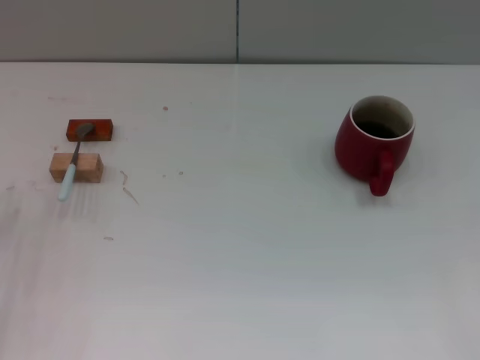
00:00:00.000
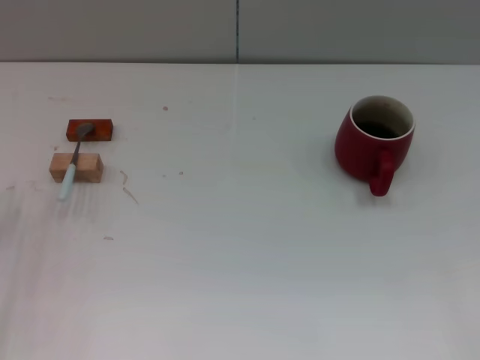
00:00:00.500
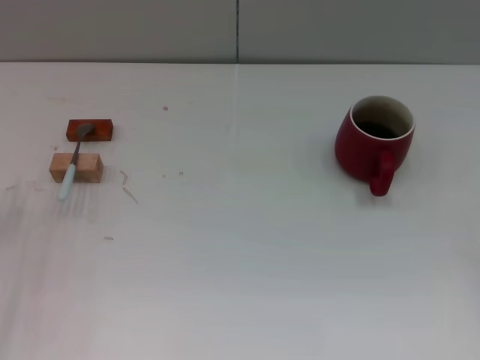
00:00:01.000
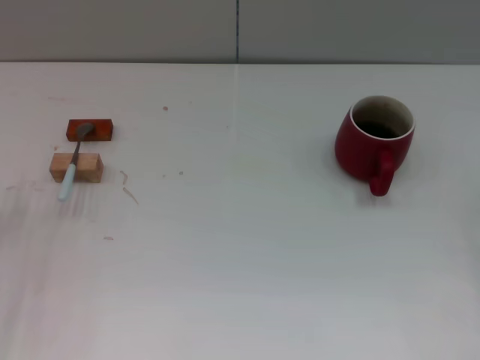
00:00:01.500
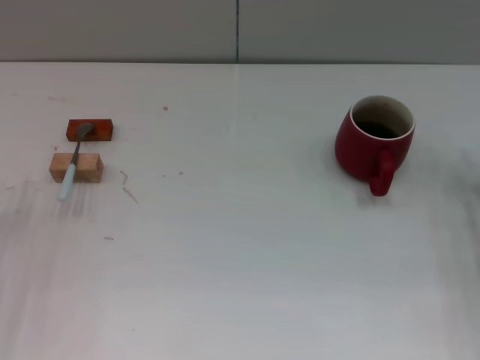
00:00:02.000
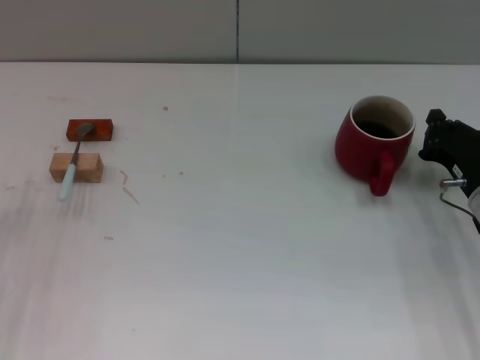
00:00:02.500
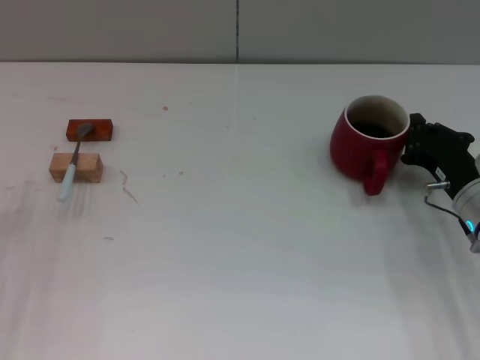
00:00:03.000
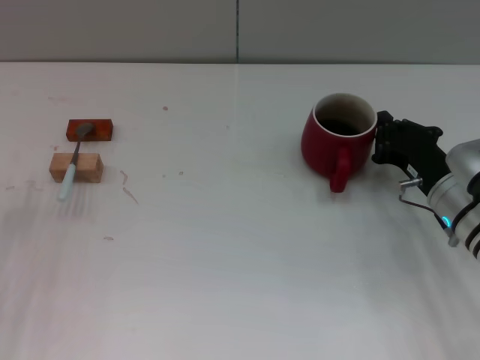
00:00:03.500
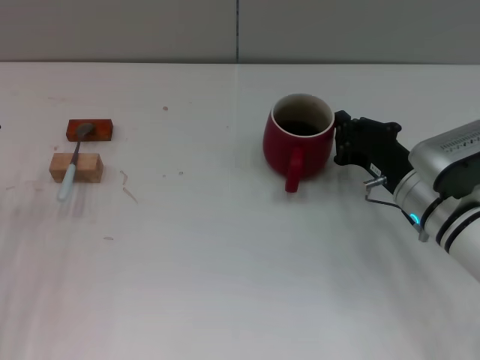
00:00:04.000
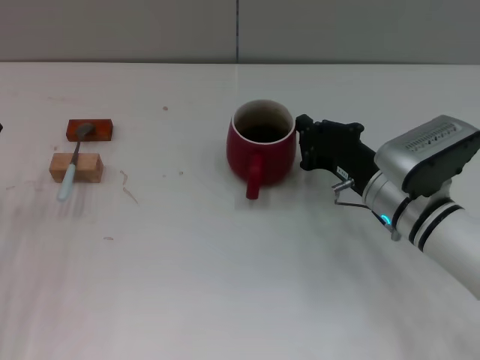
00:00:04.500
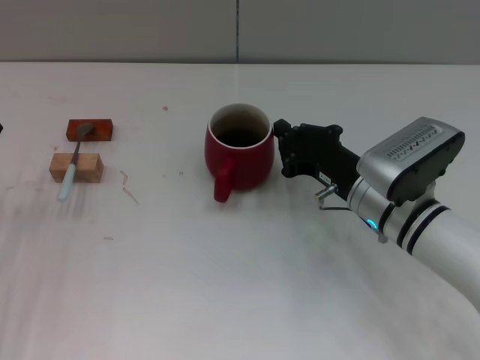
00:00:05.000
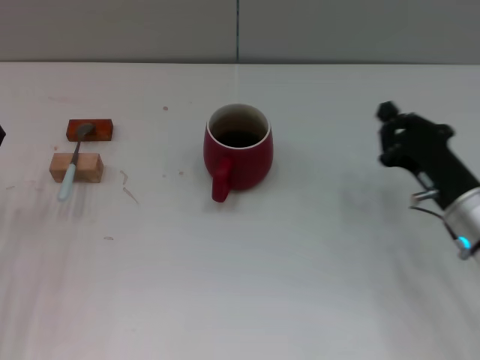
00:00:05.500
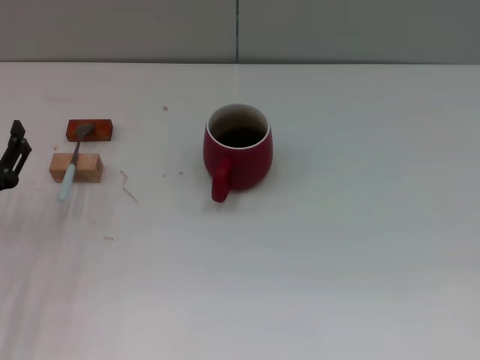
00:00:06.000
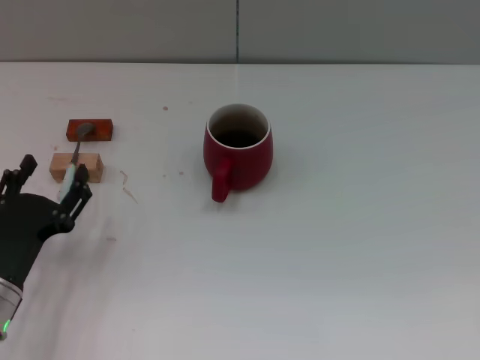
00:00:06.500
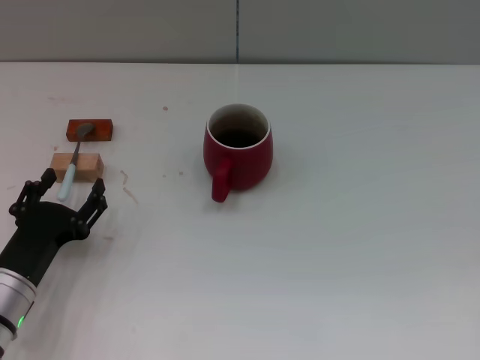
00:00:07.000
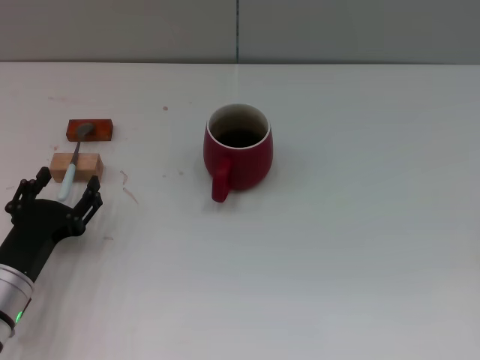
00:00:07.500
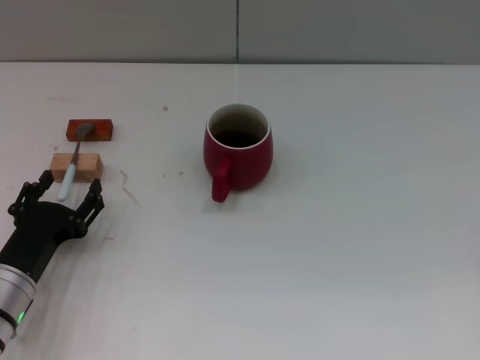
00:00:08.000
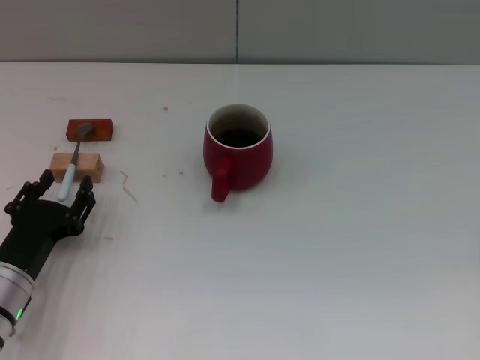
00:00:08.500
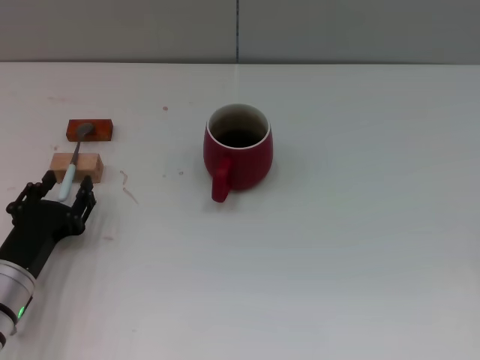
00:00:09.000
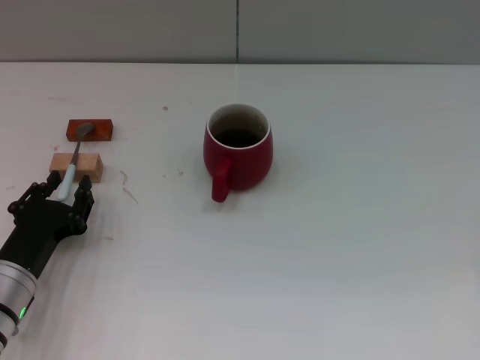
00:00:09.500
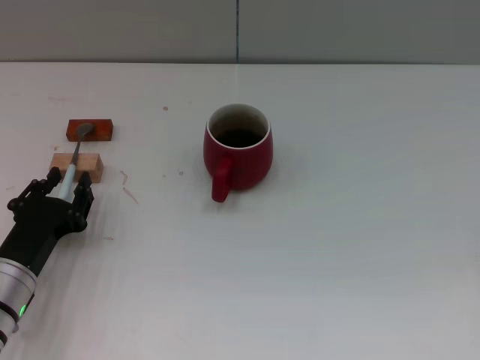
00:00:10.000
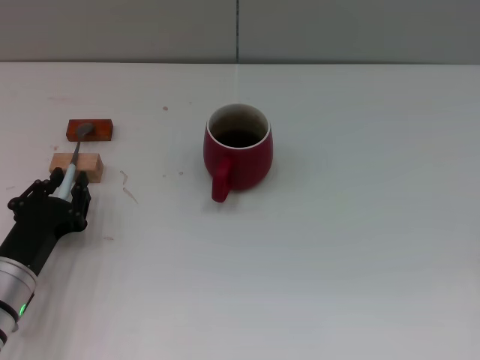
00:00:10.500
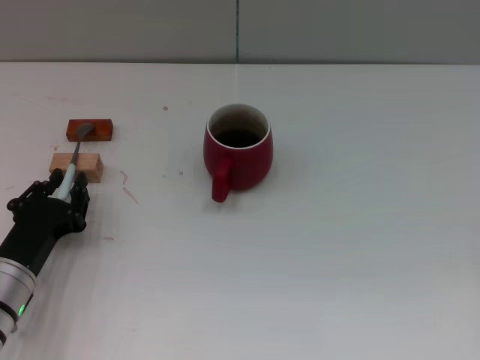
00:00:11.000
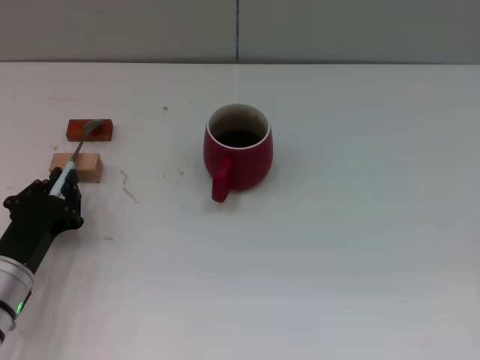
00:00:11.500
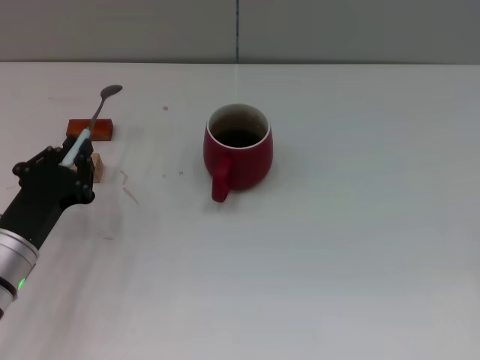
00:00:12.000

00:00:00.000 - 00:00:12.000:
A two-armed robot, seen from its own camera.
Task of the whole recording: Move the red cup to the center, lift the blue spoon, stir it three times in the cup, and put the spoon into the cup.
Step, 00:00:00.000 - 00:00:05.000: Move the cup with coffee to the center of view with the right gripper.
00:00:00.000 - 00:00:02.000: The right gripper goes about 15 cm forward, and closes.
00:00:02.000 - 00:00:04.000: The right gripper moves to the left, roughly 10 cm.
00:00:04.000 - 00:00:06.000: The right gripper goes some 20 cm to the right and backward.
00:00:06.000 - 00:00:08.000: The left gripper ends up approximately 5 cm from where it was.
00:00:08.000 - 00:00:10.000: The left gripper closes its fingers.
00:00:10.000 - 00:00:12.000: The left gripper closes its fingers.

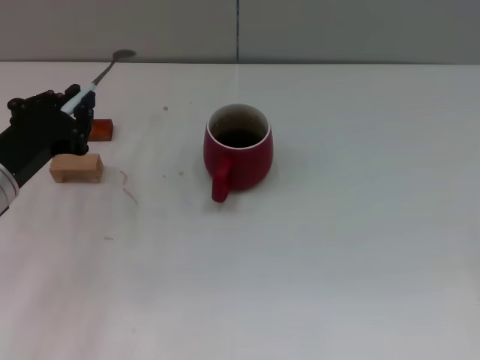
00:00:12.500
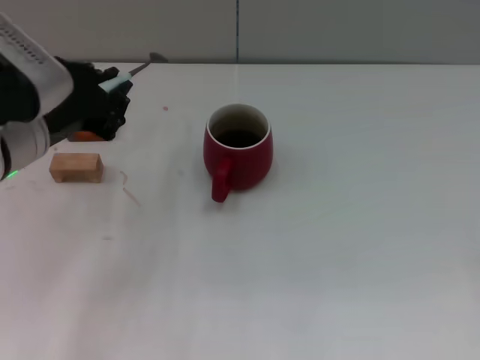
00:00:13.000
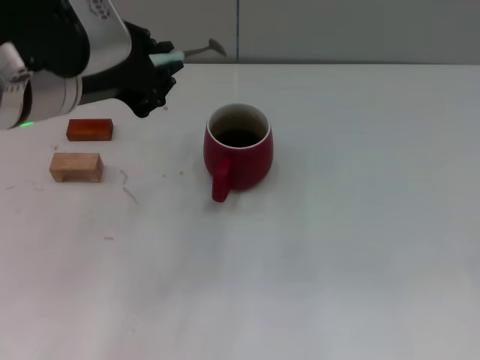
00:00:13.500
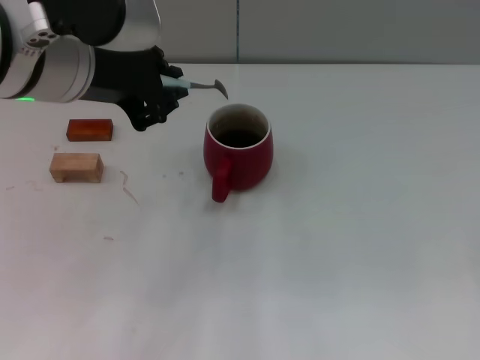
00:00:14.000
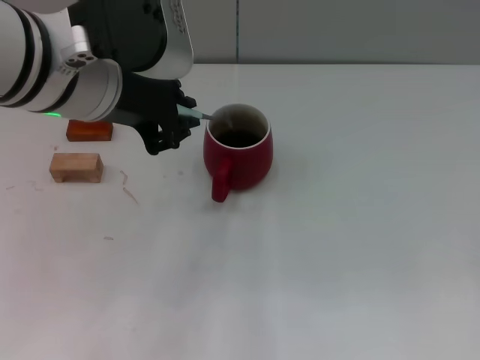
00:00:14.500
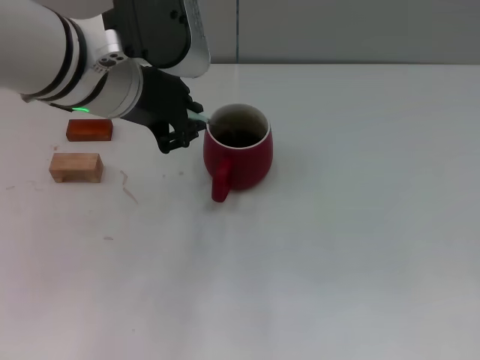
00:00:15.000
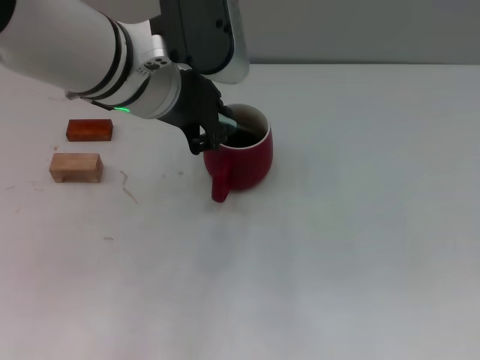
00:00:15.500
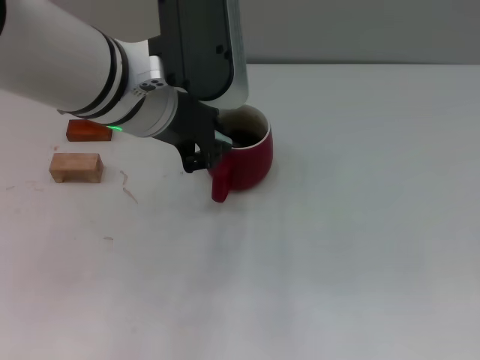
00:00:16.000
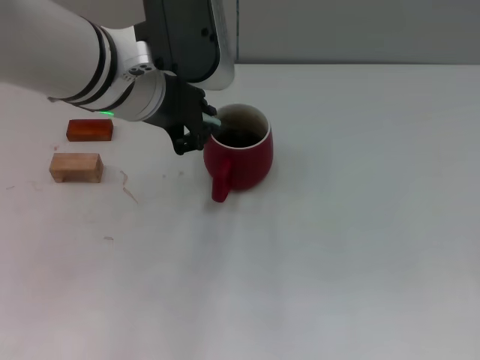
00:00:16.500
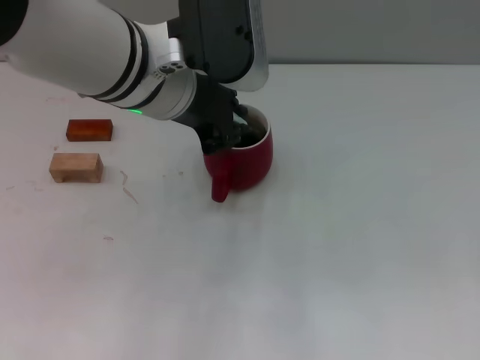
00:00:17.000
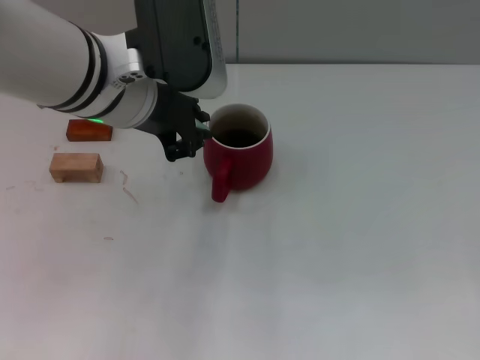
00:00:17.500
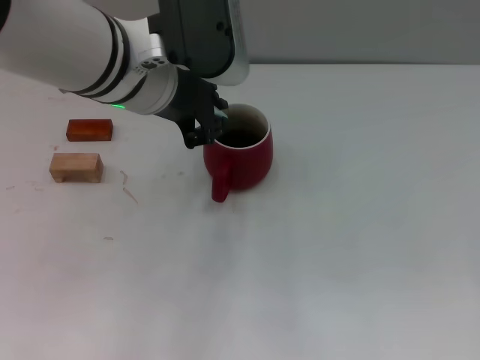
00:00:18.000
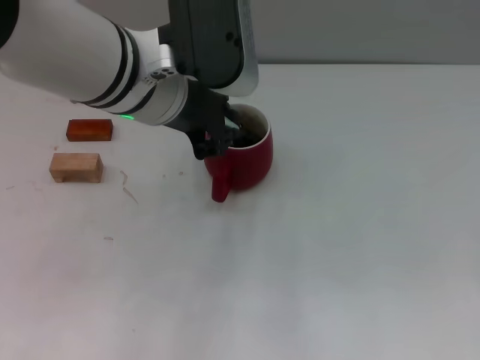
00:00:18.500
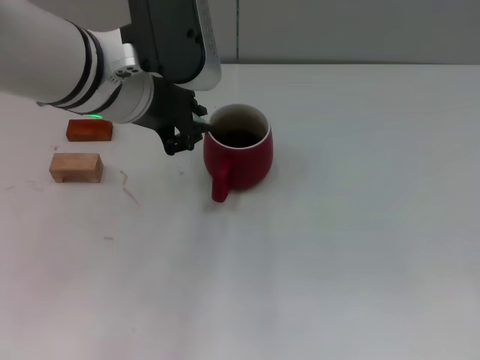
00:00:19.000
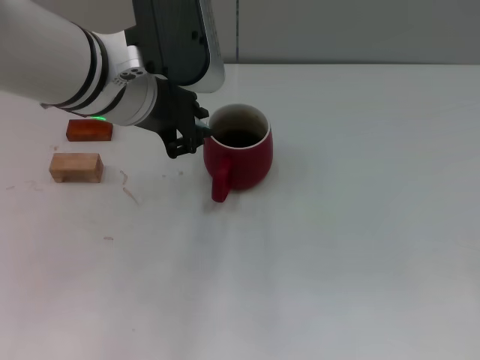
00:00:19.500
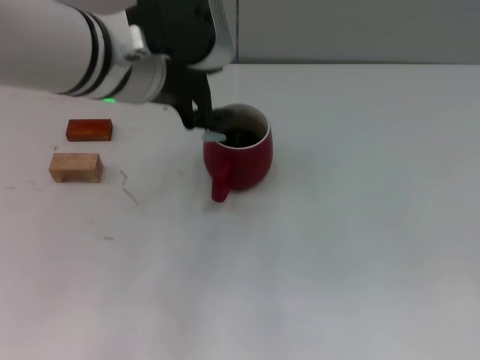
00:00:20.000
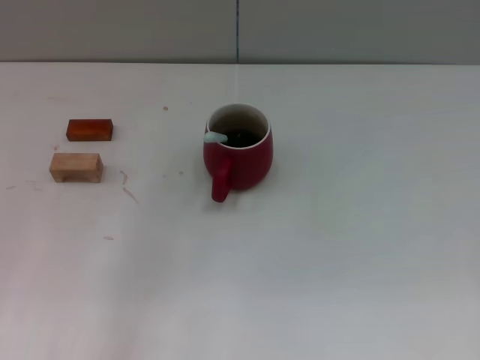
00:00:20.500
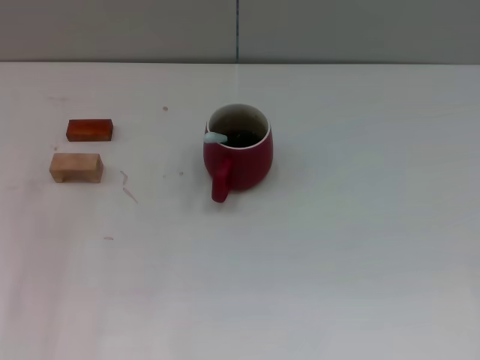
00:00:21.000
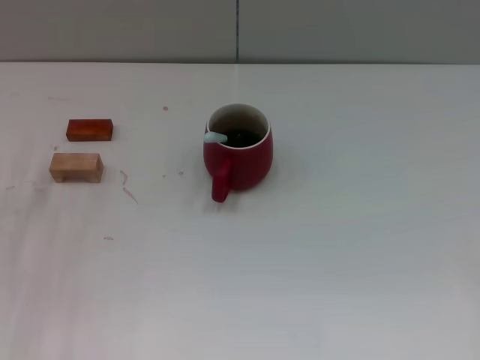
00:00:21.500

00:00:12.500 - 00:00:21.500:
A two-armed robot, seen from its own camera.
Task of the whole recording: Move the red cup to the center, lift the blue spoon, stir it three times in the cup, and put the spoon into the cup.
Step, 00:00:12.500 - 00:00:20.000: Stir the coffee in the cup with the left gripper.
00:00:12.500 - 00:00:14.500: The left gripper travels upward and to the right by roughly 20 cm.
00:00:14.500 - 00:00:17.000: The left gripper moves roughly 5 cm.
00:00:17.000 - 00:00:19.500: The grippers move only a little.
00:00:19.500 - 00:00:21.500: The left gripper travels to the left, downward and backward by about 25 cm, and opens.
